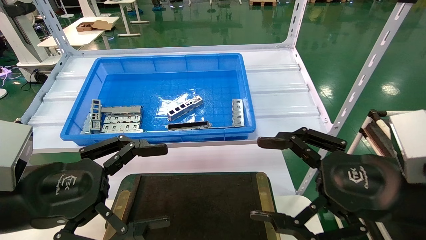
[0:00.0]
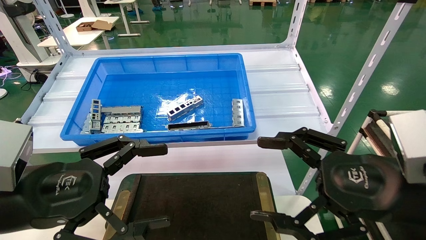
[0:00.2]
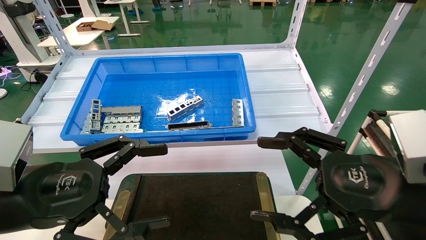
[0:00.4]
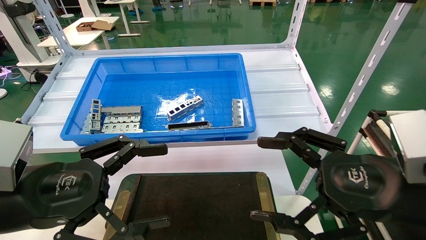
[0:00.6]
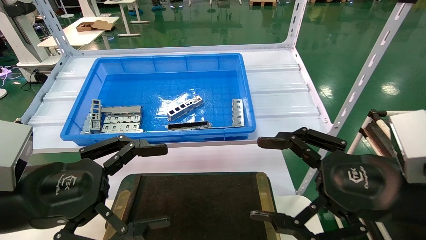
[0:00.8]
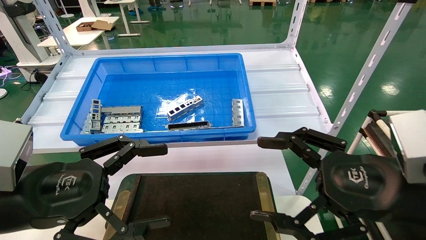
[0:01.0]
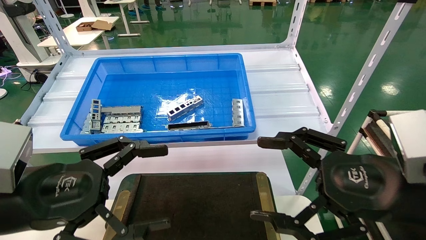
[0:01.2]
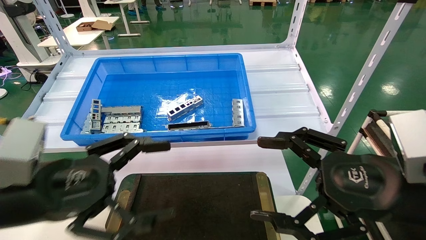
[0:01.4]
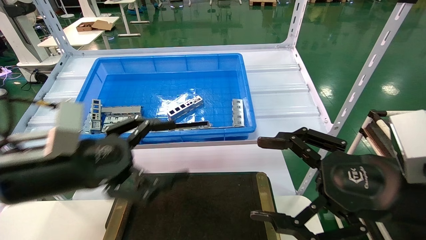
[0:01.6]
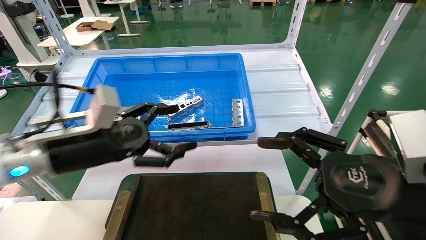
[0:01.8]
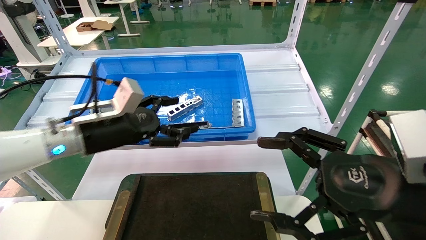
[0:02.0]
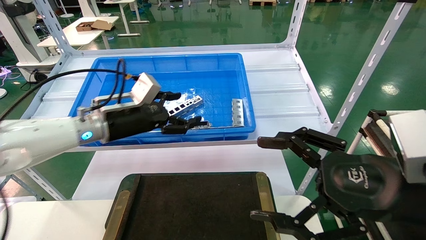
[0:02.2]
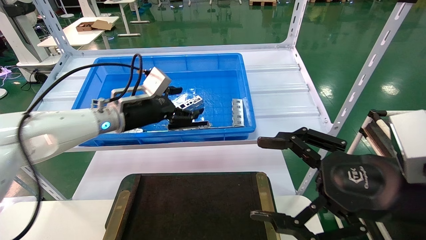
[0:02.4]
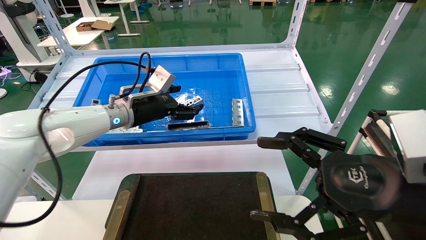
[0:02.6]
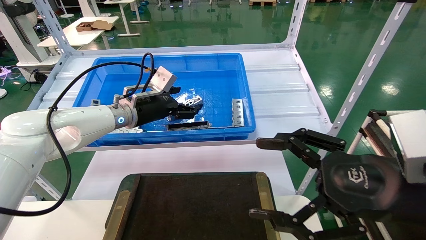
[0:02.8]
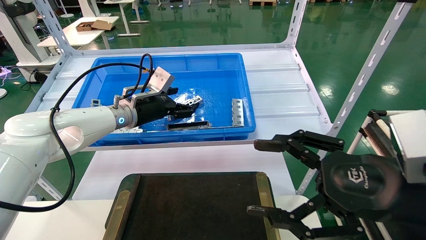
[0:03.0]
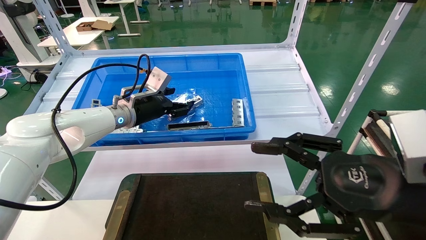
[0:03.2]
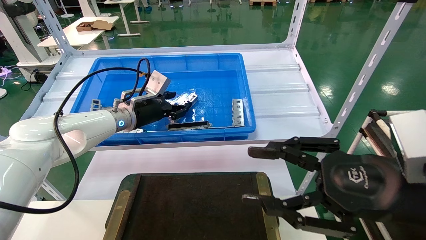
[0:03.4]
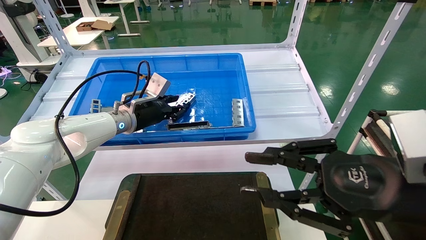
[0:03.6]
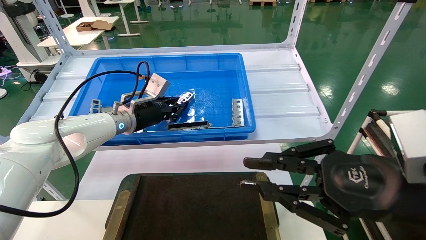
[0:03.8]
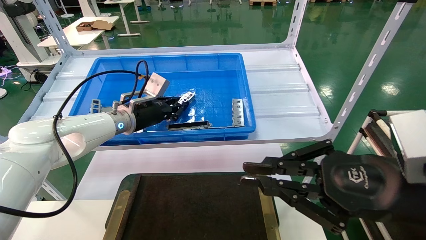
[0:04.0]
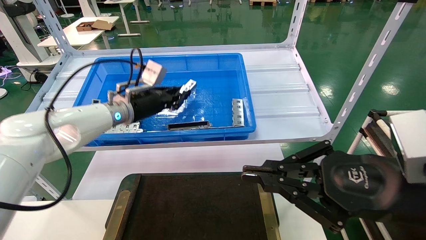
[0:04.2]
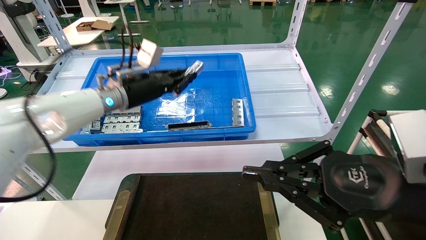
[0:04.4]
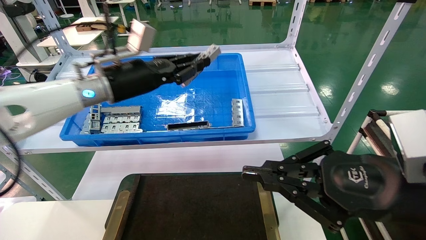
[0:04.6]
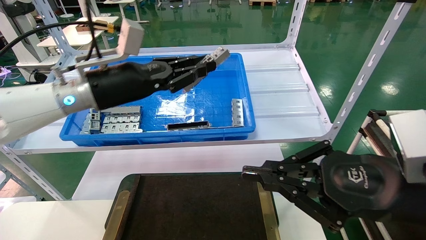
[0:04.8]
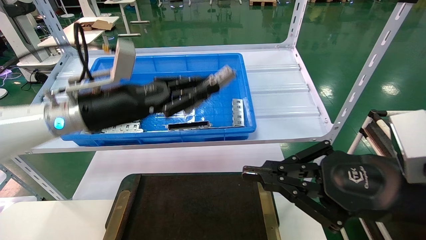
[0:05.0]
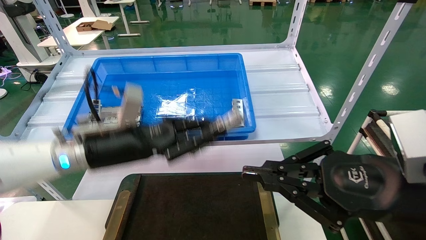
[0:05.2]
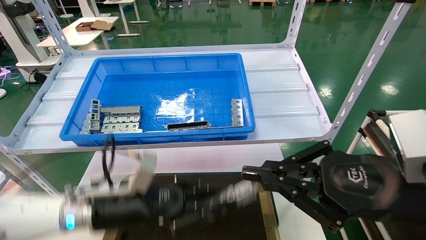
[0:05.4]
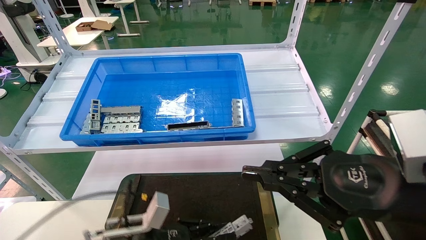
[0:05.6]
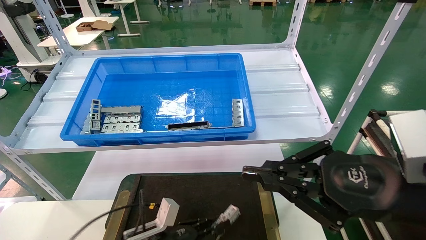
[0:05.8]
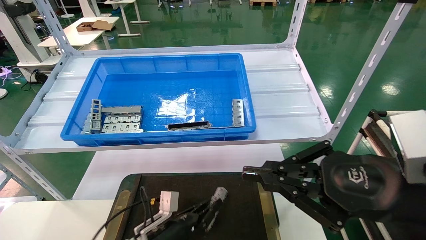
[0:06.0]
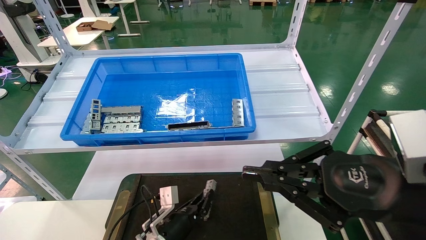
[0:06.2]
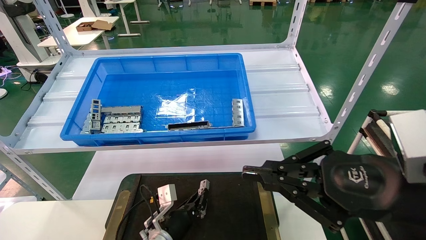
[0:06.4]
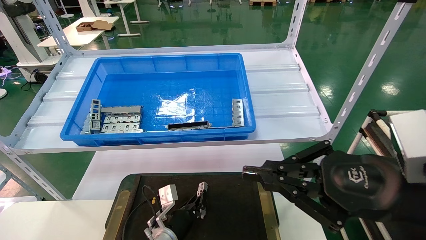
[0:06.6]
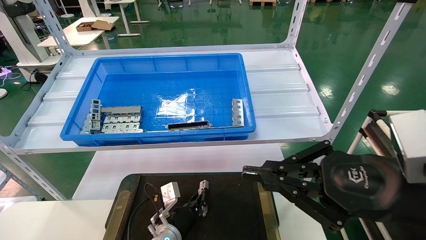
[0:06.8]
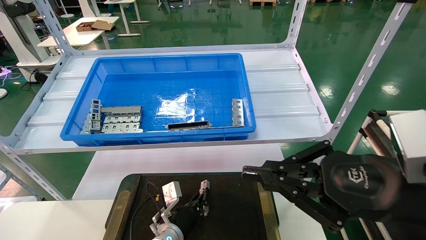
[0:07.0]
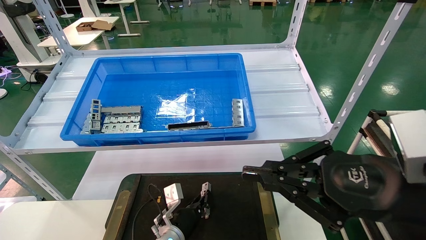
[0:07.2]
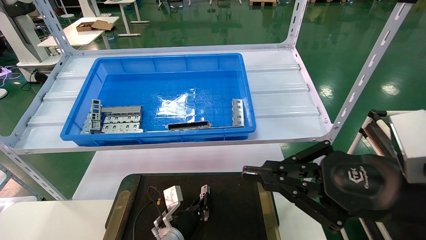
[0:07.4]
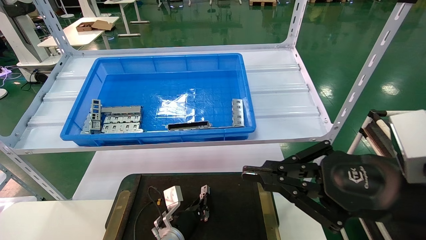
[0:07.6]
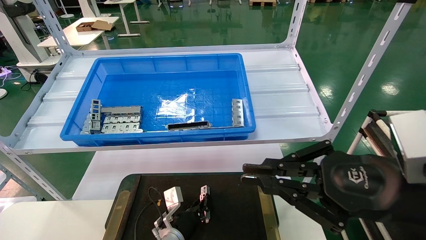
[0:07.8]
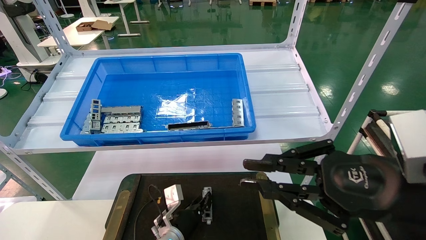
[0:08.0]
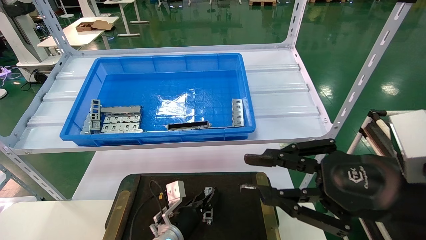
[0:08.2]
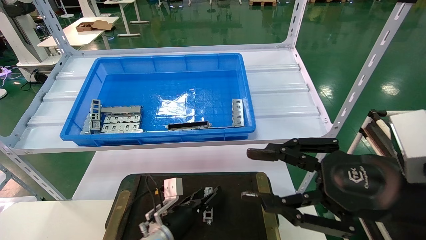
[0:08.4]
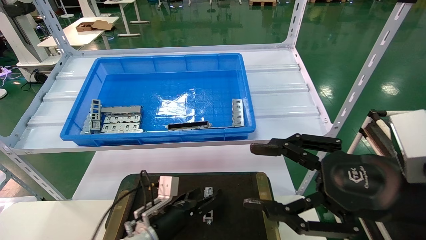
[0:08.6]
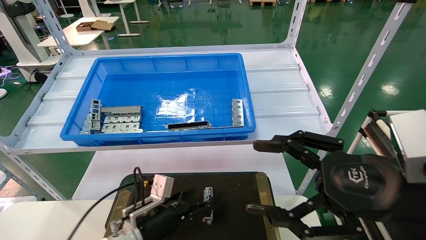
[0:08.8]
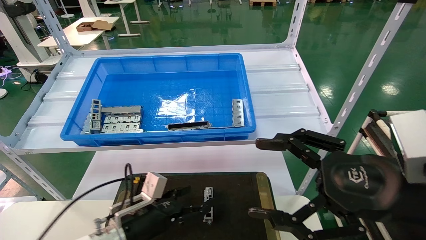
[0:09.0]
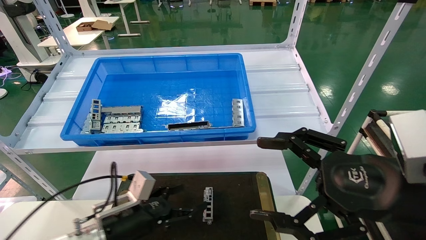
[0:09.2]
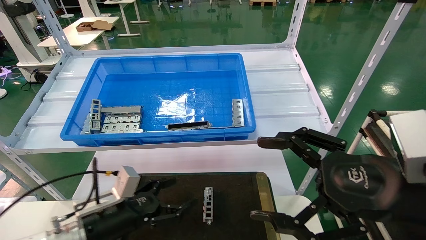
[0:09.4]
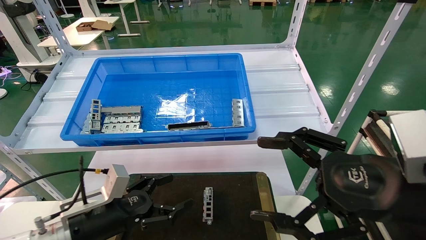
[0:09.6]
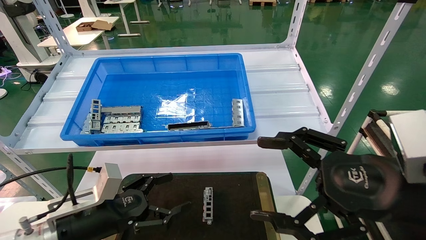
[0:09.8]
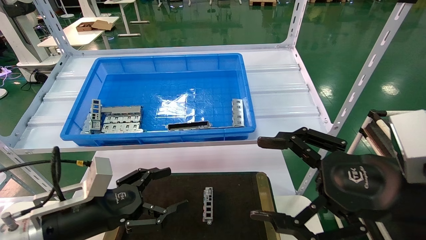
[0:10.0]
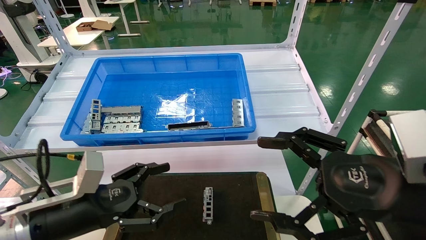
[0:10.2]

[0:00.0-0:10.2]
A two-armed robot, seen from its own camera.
Task of the whole recording: Grasp the part with one hand and place it on the black container.
Step, 0:01.6 to 0:03.6: Pick up the front USB bracket from the feeding area.
Step, 0:03.8 to 0:07.6: Place the front USB bracket into the box.
0:00.0 to 0:01.4: The grippers make only small movements.
0:01.4 to 0:03.0: The left gripper moves forward, about 25 cm.
0:03.0 to 0:04.4: The left gripper ends up some 5 cm from where it was, and closes. The right gripper closes its fingers.
0:04.4 to 0:05.8: The left gripper is displaced downward by roughly 30 cm.
0:05.8 to 0:07.2: The left gripper travels forward and to the right by roughly 10 cm.
0:07.2 to 0:08.8: The left gripper shifts about 10 cm upward, to the left and backward, and opens its fingers. The right gripper opens.
0:08.8 to 0:10.2: The left gripper shifts roughly 20 cm upward, to the left and backward.

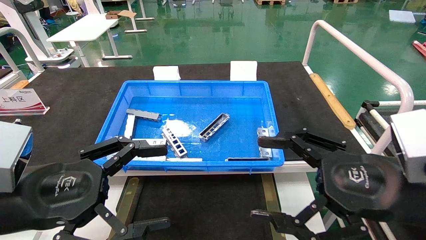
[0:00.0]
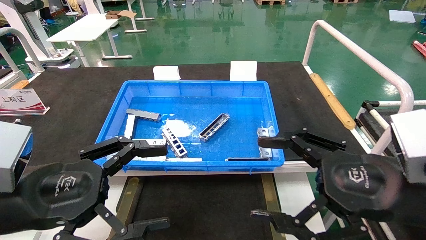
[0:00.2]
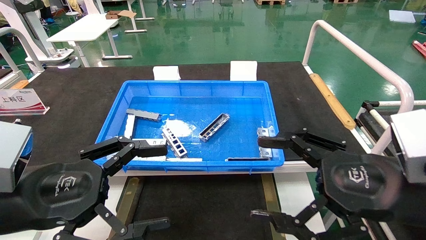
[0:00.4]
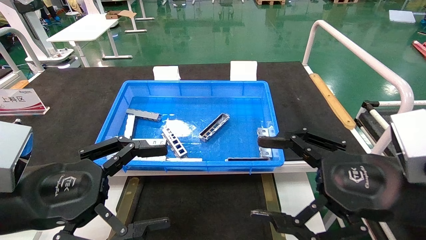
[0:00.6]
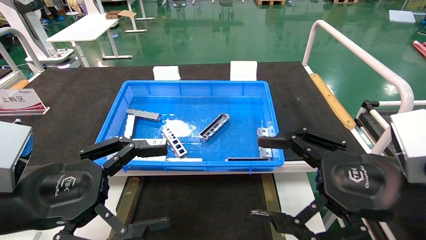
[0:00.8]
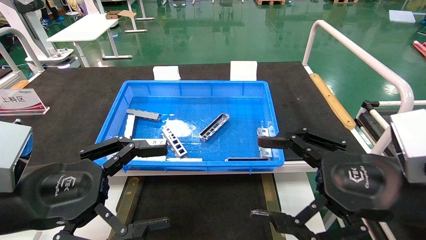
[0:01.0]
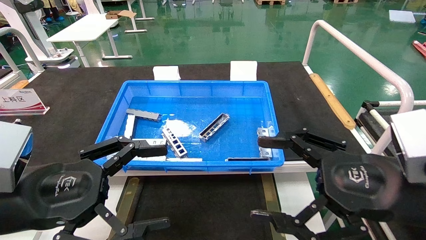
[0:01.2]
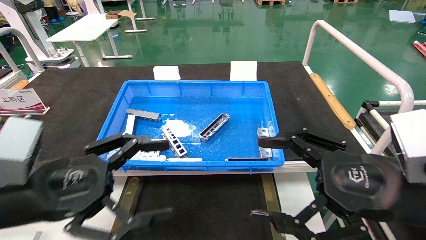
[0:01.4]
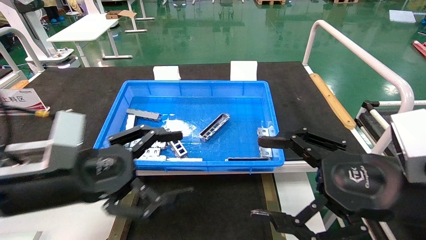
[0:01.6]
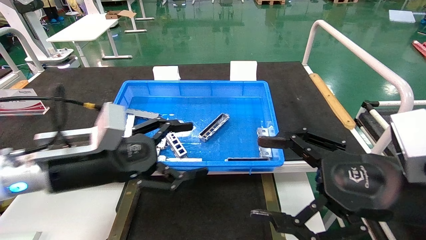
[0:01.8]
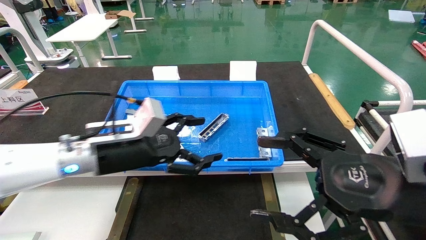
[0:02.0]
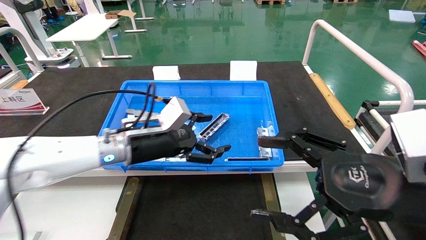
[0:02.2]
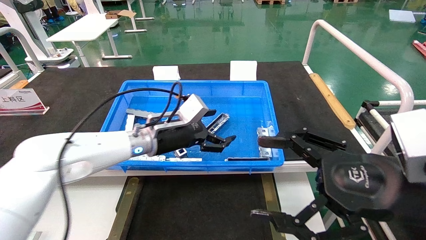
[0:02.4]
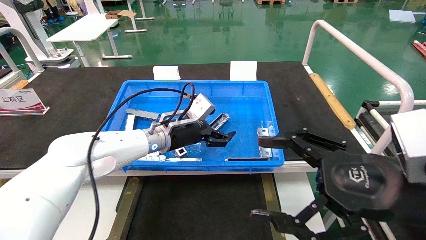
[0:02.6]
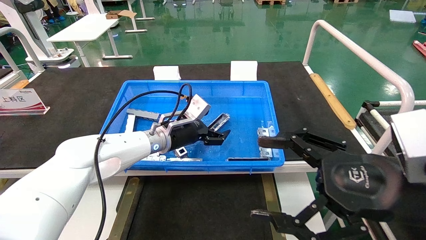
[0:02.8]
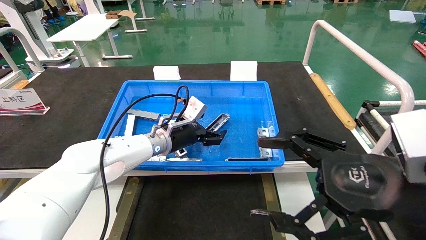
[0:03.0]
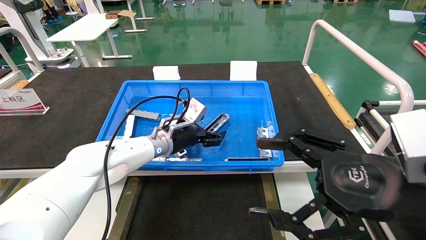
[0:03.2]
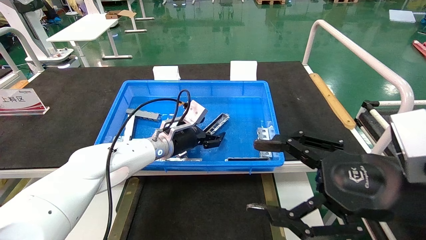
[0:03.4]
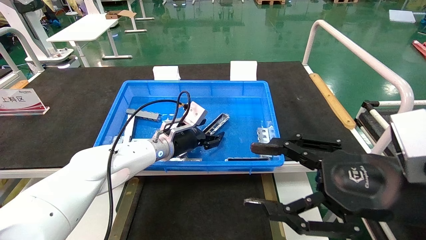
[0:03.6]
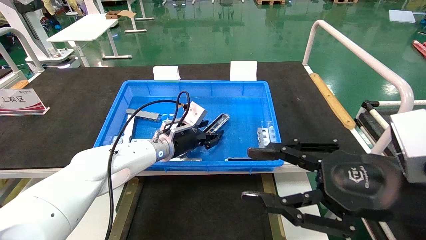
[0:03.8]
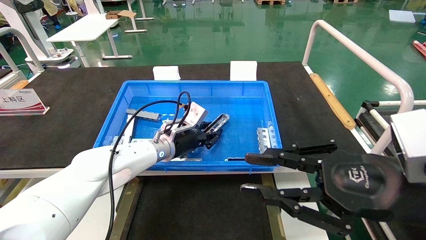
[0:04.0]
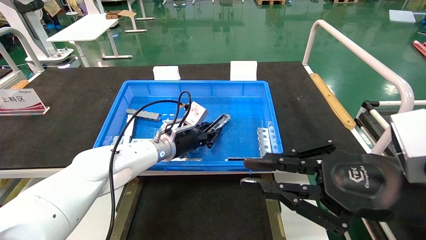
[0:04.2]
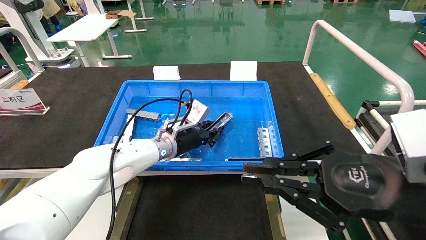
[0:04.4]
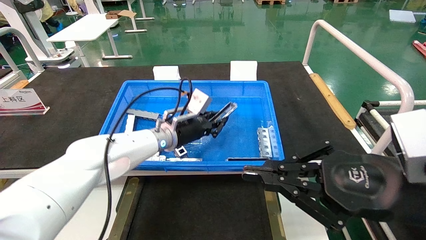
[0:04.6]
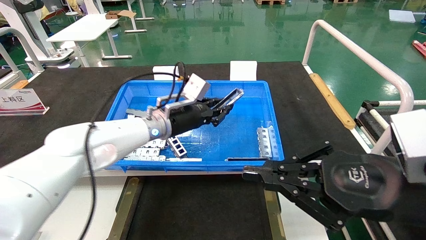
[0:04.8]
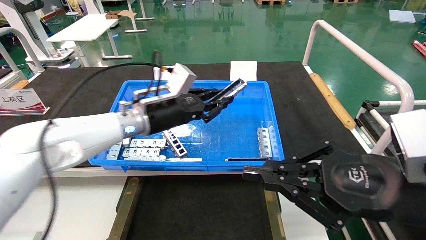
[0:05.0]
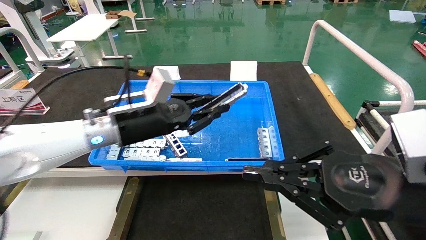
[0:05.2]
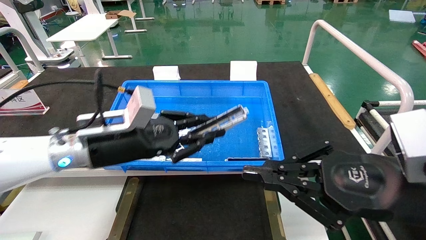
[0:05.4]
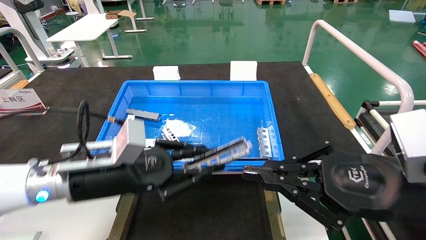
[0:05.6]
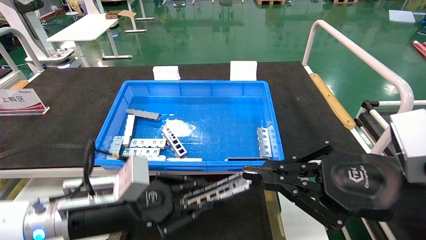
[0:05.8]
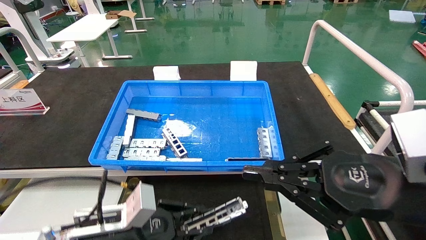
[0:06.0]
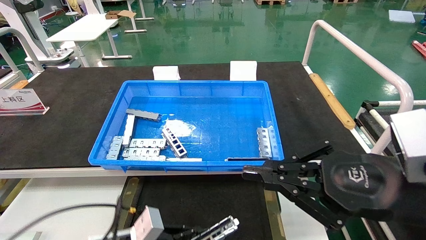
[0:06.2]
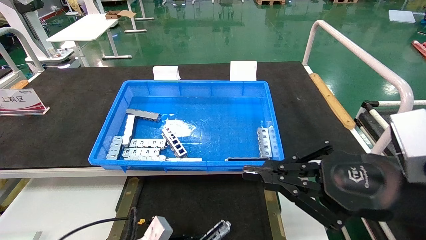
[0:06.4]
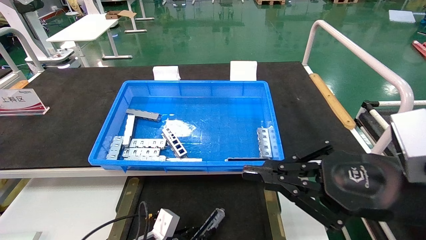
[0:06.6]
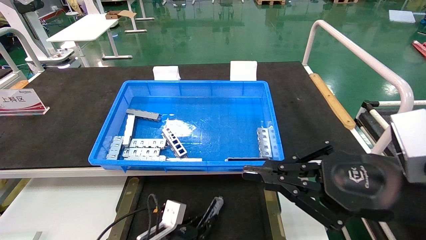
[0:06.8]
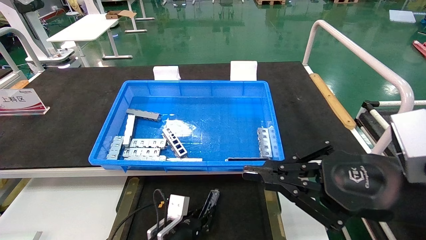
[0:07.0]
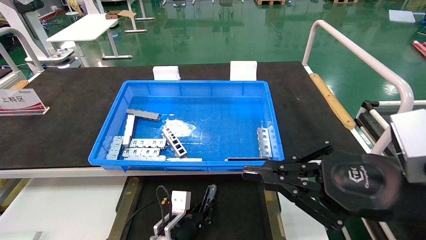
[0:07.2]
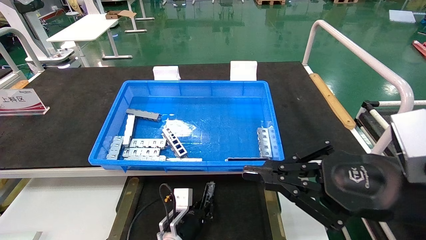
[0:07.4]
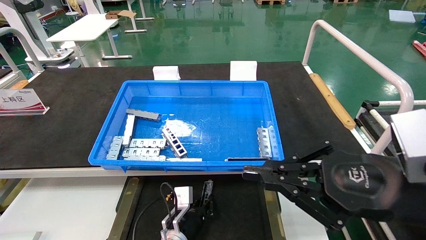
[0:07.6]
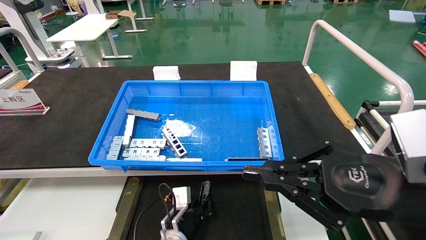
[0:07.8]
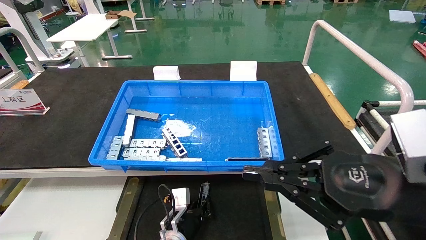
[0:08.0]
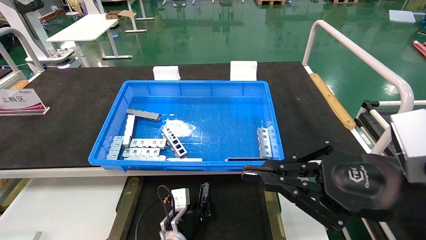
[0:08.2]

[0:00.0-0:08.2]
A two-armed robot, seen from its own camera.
Task of the whole recording: Grasp the part with one hand and place it on the black container.
Step, 0:01.4 to 0:04.0: Pick up the front USB bracket from the feeding area.
0:00.0 to 0:01.6: The left gripper moves forward, approximately 5 cm.
0:01.6 to 0:03.2: The left gripper heads forward and to the right, covering about 25 cm.
0:03.2 to 0:05.0: The left gripper shifts roughly 10 cm upward and backward, and closes up; the right gripper closes its fingers.
0:05.0 to 0:06.6: The left gripper moves downward and backward, approximately 30 cm.
0:06.6 to 0:08.2: The left gripper heads forward and to the right, covering about 10 cm.
